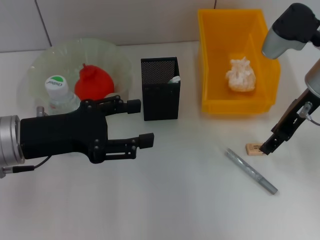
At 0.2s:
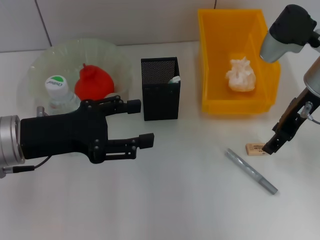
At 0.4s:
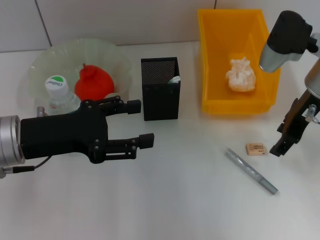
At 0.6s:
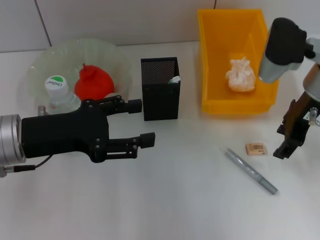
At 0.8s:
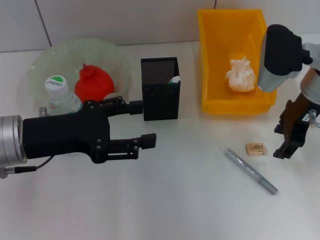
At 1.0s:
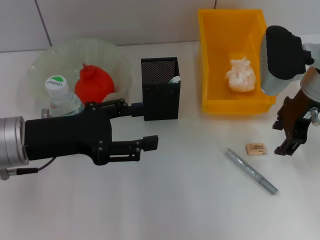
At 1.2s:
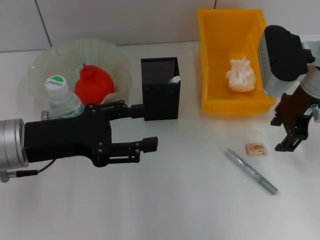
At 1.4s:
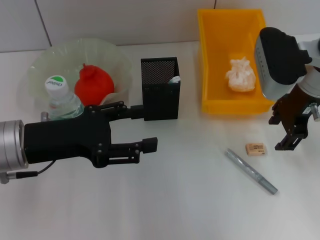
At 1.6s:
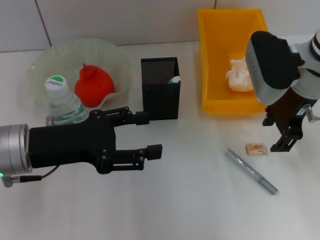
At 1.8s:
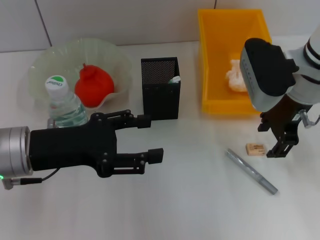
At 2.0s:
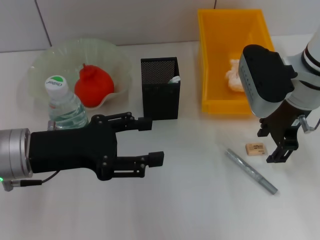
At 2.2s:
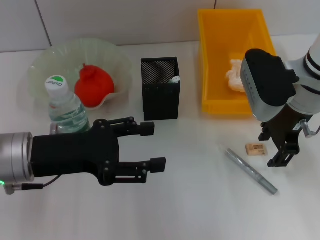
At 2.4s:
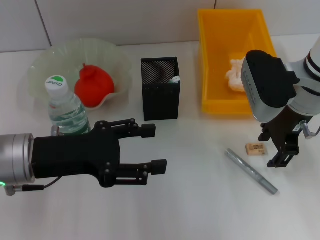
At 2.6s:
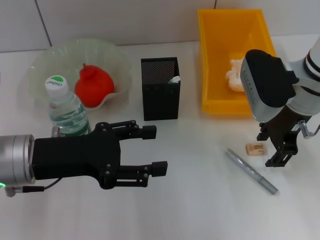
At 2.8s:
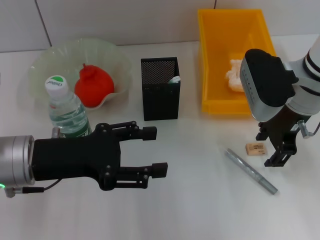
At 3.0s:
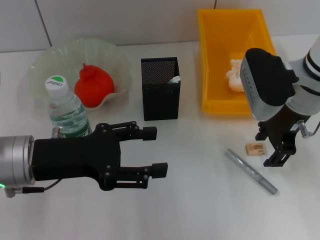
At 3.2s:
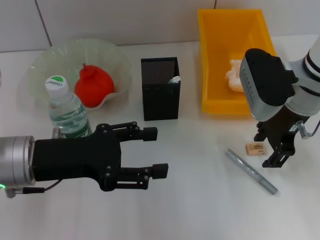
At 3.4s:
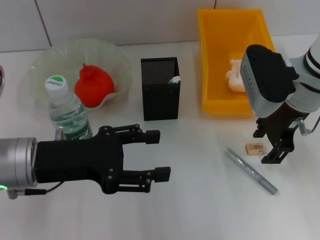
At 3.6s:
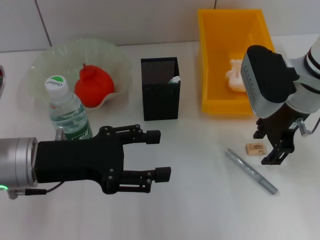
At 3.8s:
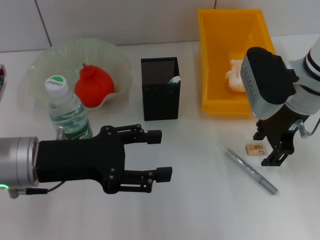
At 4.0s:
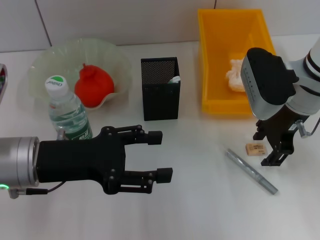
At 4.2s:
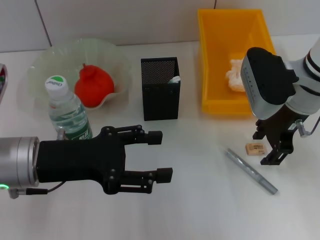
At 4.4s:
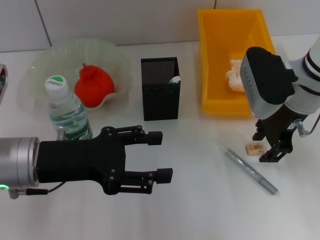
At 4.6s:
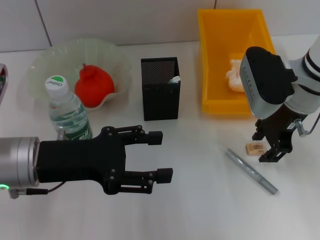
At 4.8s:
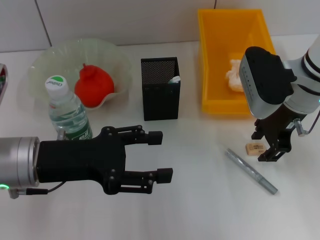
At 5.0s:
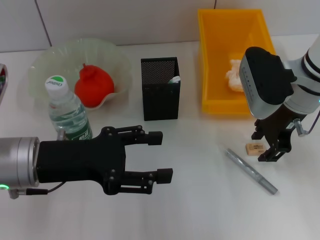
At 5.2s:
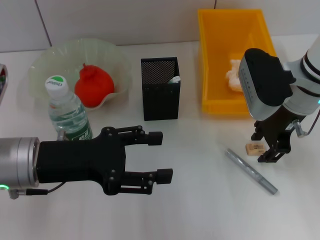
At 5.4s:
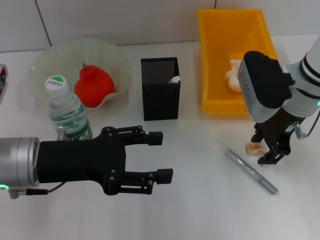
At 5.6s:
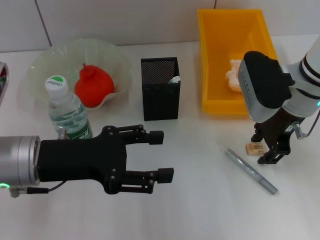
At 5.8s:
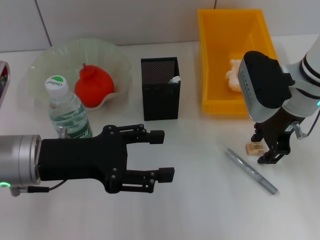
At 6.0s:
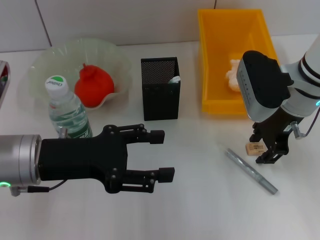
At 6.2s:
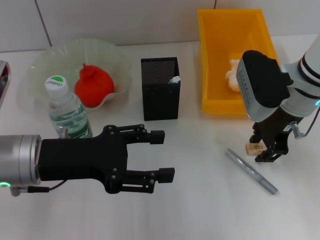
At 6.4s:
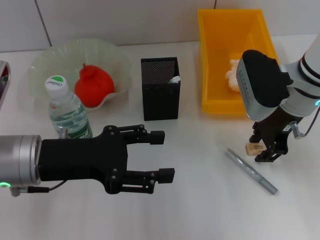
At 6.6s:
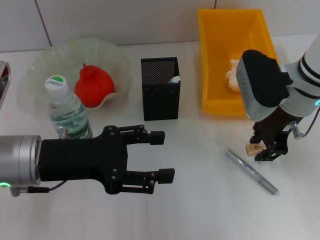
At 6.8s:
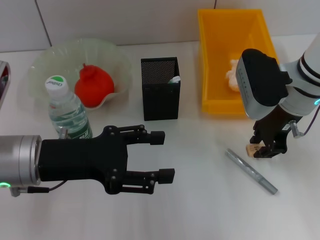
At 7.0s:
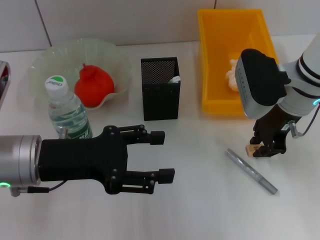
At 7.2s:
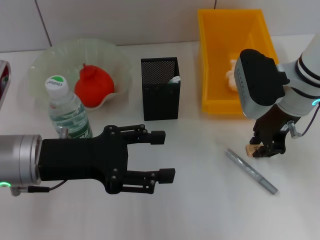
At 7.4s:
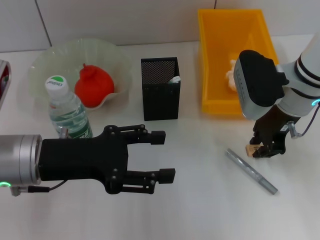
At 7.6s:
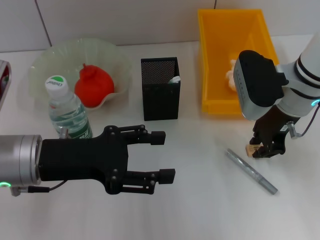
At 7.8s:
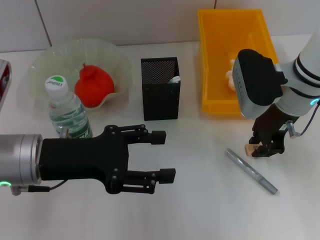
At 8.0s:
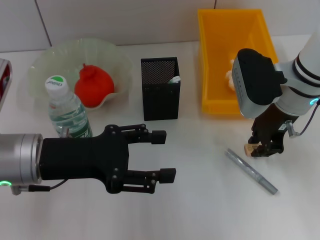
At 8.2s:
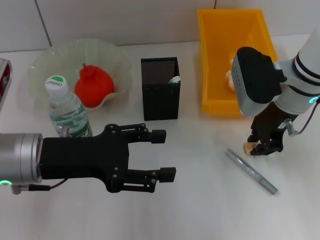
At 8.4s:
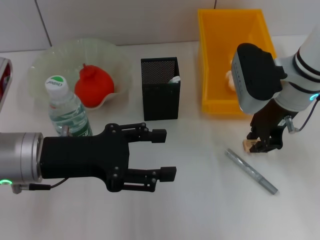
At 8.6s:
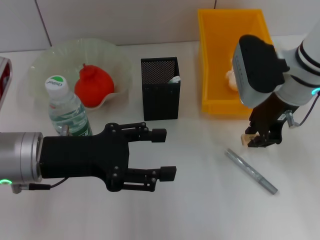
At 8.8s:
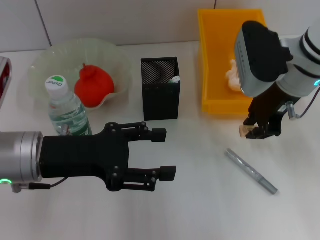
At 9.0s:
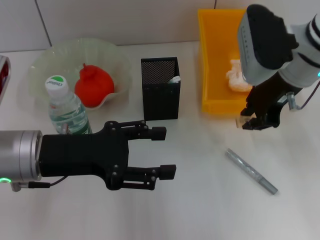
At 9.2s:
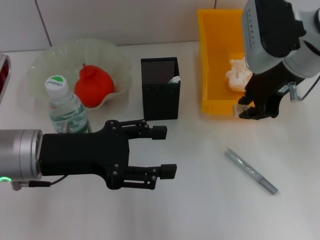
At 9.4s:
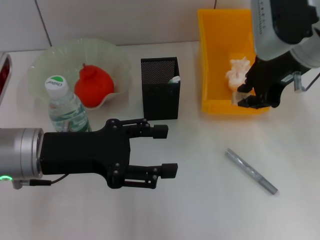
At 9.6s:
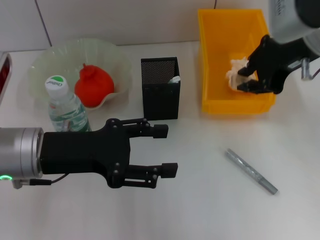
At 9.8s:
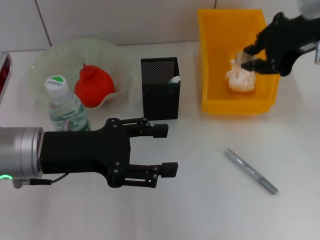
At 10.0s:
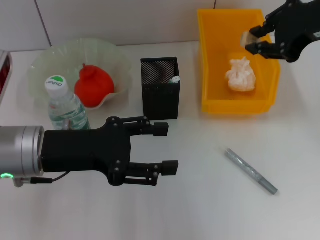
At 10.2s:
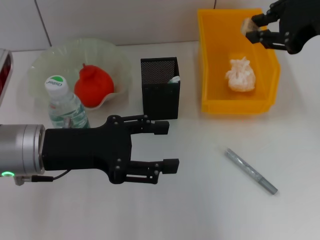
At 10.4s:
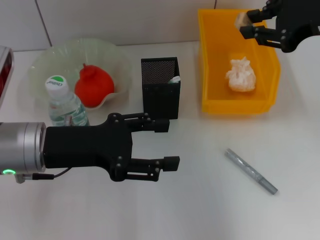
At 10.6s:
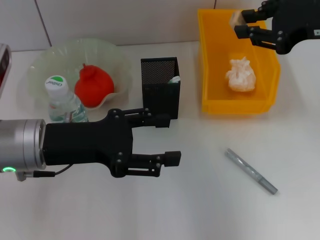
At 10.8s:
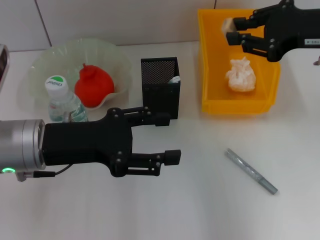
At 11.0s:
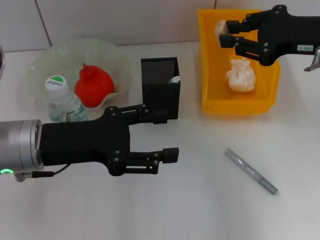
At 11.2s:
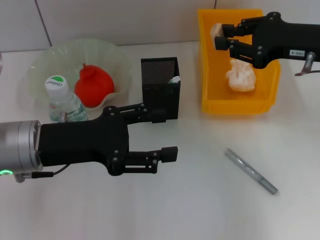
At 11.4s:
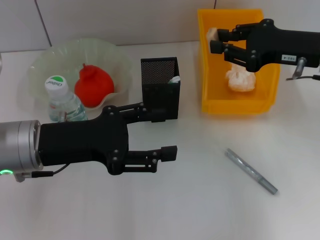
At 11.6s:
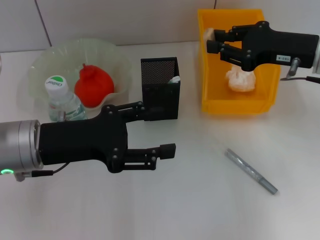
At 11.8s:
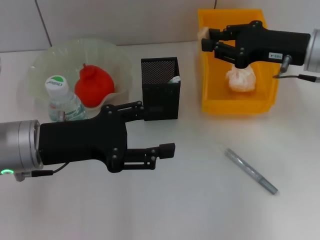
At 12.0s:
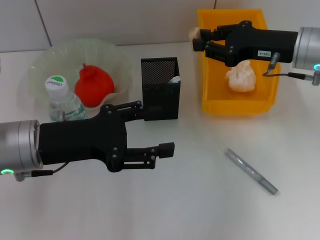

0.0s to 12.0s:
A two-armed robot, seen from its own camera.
Step, 0.0s to 7.2s: Grab the eraser with the right hand.
1.6s to 3.0s: The grippers stay close to where they were, moving slightly.
3.0s to 6.0s: The two grippers keep their place.
6.0s to 7.6s: The right gripper closes its fingers.
7.6s to 9.0s: The right gripper goes some 5 cm upward.
9.0s to 10.4s: The right gripper heads to the right and upward, covering approximately 10 cm.
10.4s to 12.0s: The right gripper heads downward and forward, covering approximately 10 cm.

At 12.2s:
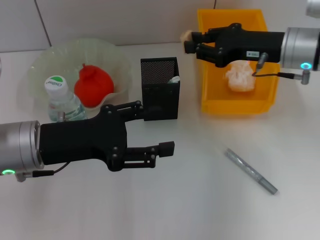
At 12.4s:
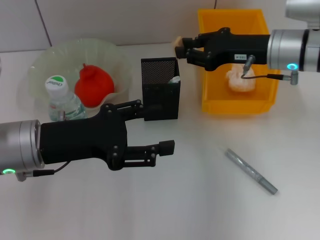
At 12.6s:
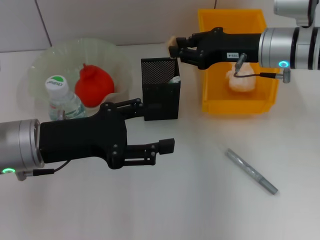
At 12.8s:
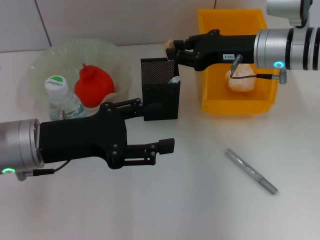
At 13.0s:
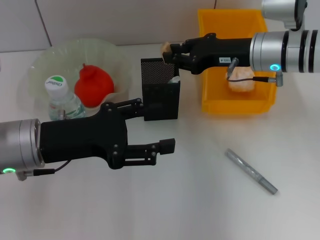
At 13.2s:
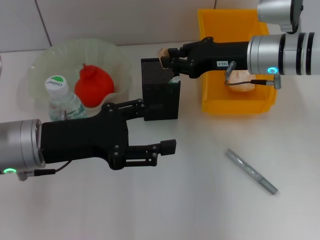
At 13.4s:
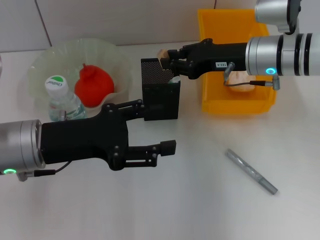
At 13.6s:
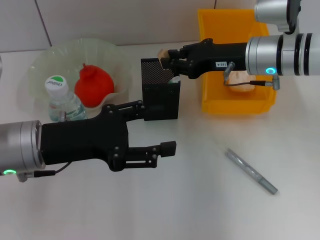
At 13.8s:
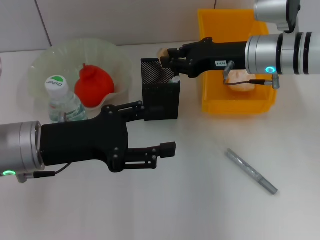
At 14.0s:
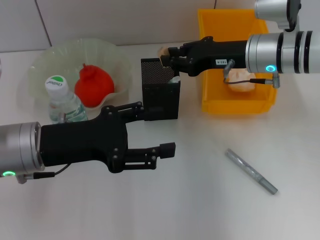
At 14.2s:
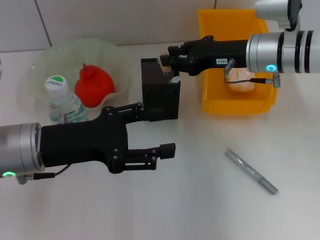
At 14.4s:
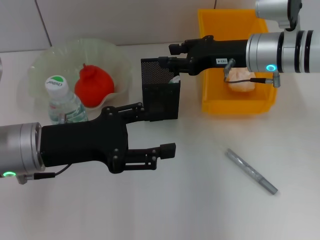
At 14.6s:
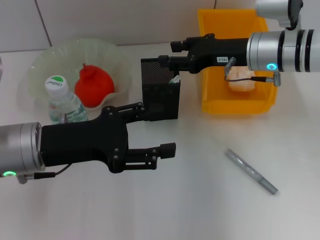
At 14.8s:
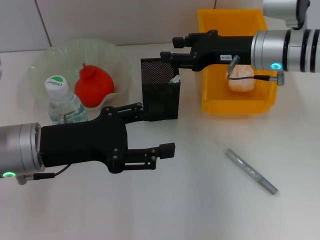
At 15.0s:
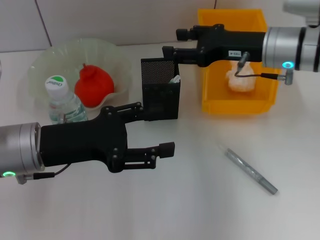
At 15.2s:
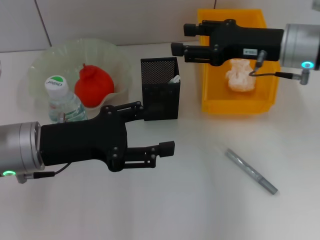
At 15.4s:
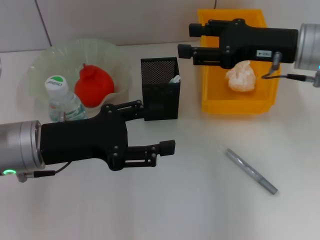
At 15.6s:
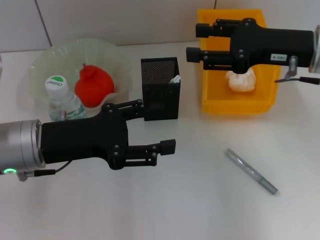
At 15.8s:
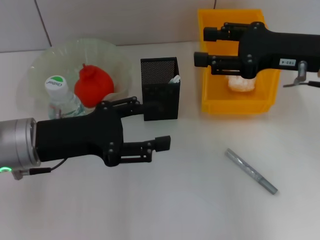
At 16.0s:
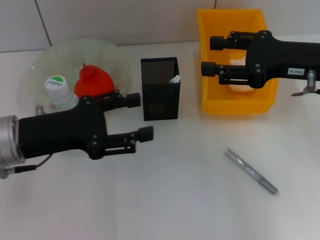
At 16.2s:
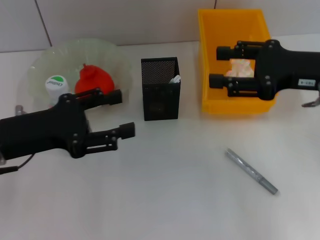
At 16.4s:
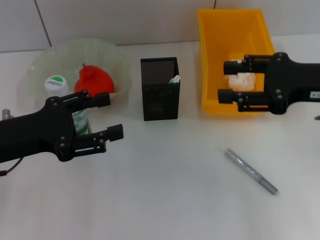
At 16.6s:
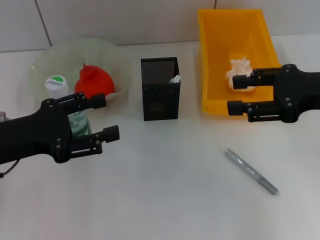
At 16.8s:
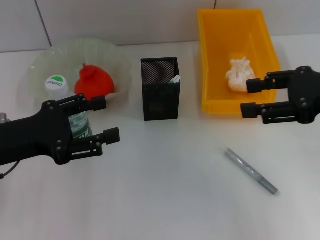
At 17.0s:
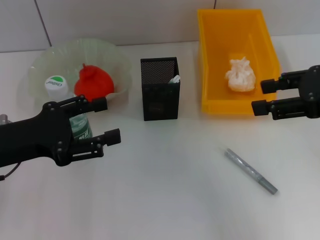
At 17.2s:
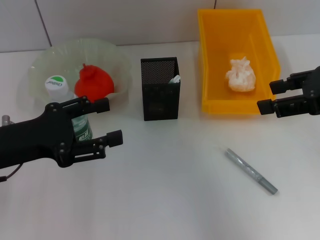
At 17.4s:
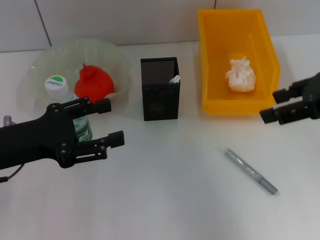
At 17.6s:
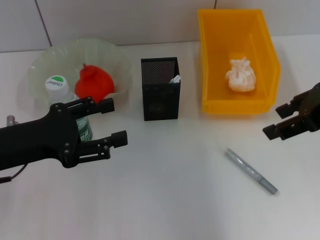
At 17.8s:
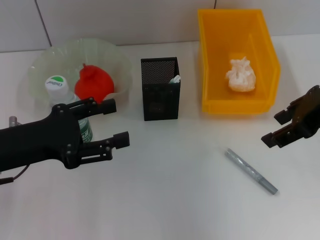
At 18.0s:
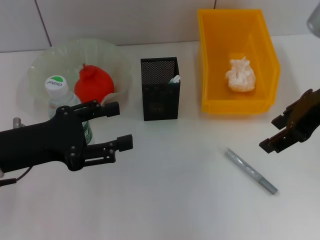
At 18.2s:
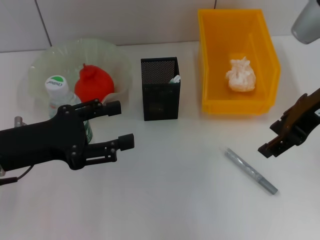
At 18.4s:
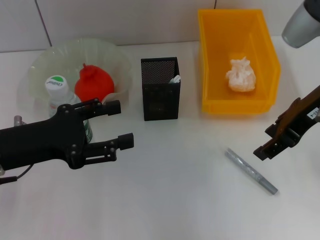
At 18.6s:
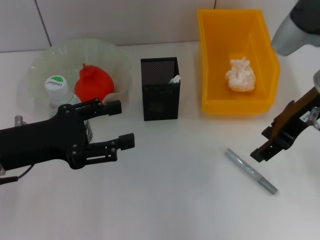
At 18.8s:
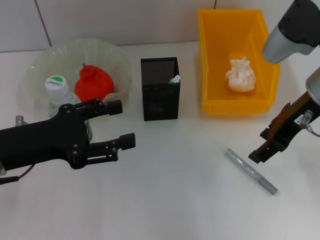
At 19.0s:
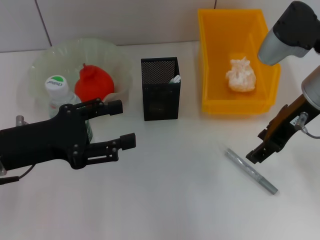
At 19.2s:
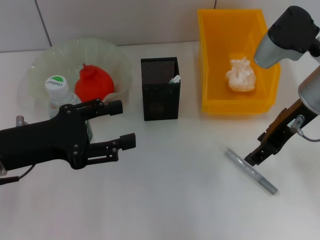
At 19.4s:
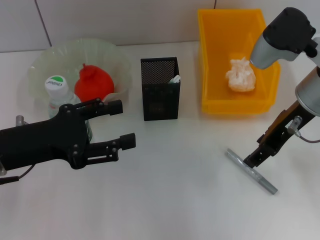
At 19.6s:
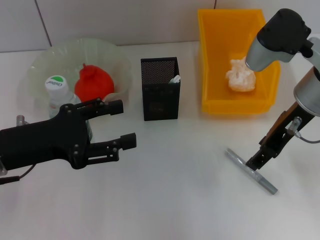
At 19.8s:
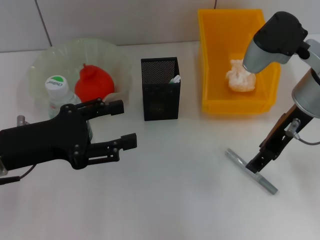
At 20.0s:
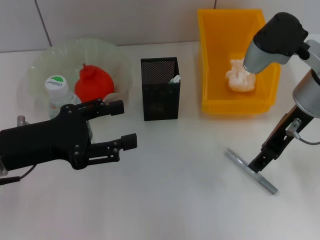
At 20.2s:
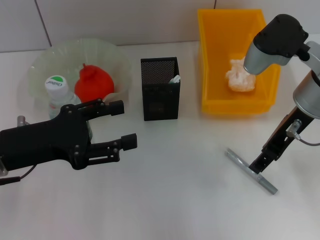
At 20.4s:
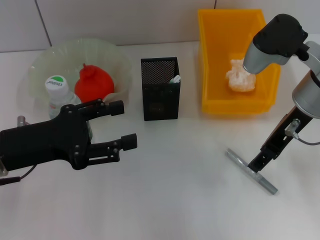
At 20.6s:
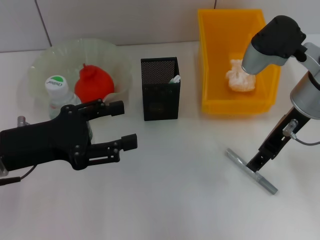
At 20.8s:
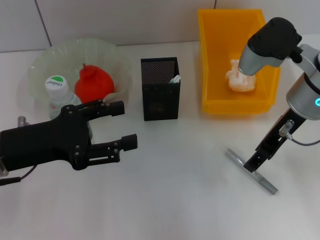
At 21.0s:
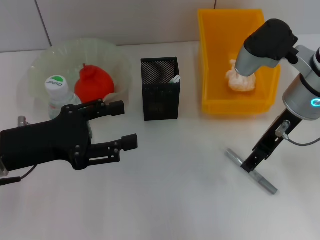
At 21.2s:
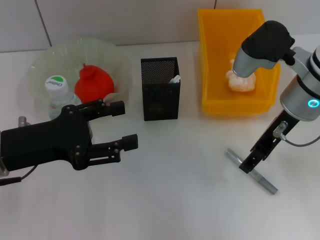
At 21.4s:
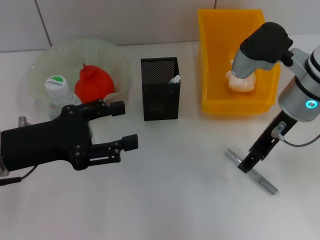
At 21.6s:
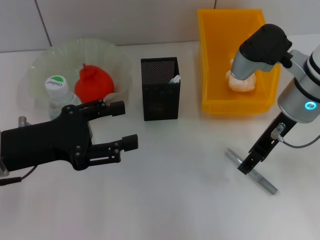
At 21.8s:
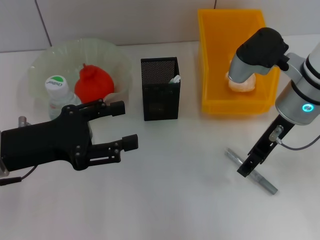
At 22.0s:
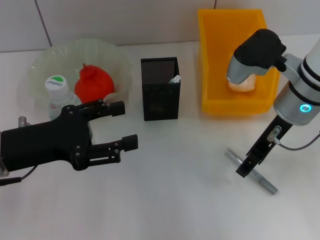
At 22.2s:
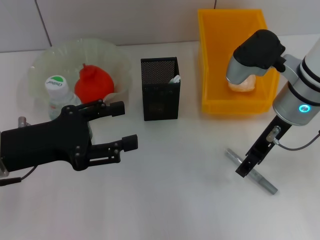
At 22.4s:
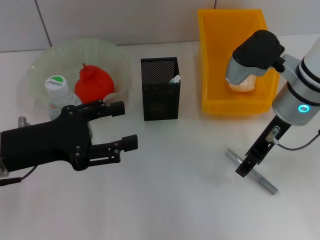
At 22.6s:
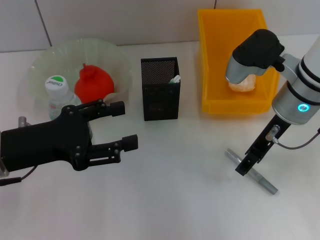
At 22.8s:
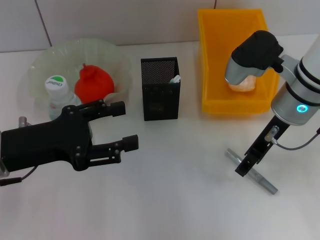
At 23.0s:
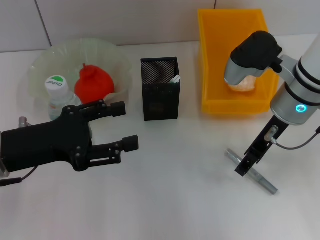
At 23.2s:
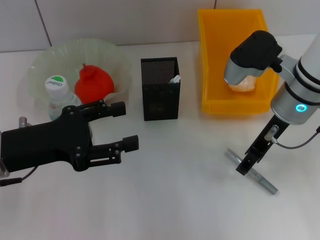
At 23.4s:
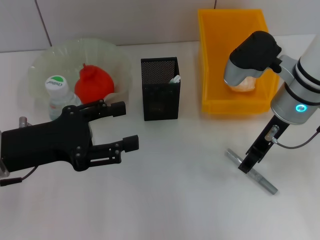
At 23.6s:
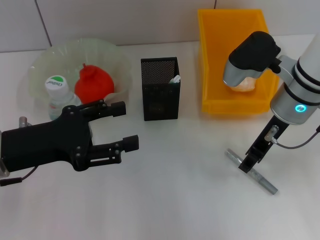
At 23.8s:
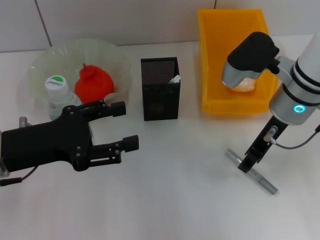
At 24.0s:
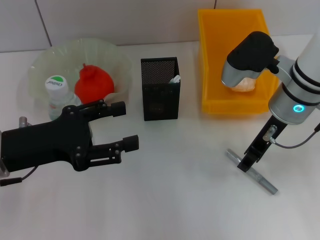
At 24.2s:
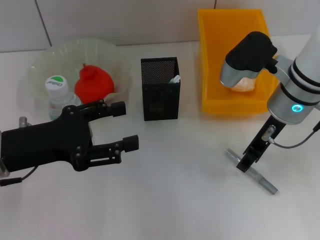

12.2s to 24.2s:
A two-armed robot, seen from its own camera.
Step, 12.2s to 14.4s: Put the eraser into the pen holder with the right hand.
12.2s to 13.8s: There are only small adjustments of the grippers.
13.8s to 15.2s: The right gripper ends up roughly 5 cm from where it was, and opens up.
15.2s to 16.6s: The right gripper travels backward and to the right by some 10 cm; the left gripper shifts roughly 5 cm to the left.
16.6s to 18.2s: The right gripper goes approximately 5 cm to the left.
18.2s to 19.8s: The right gripper ends up roughly 5 cm from where it was.
19.8s to 22.6s: There are only small adjustments of the grippers.
22.6s to 24.2s: Both grippers stay about where they are.
